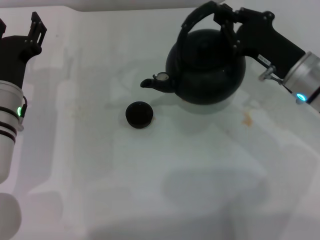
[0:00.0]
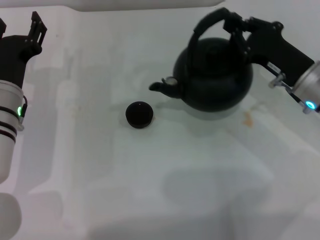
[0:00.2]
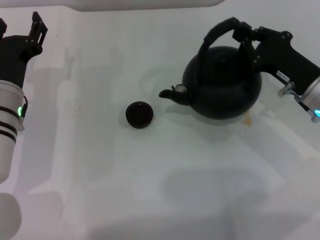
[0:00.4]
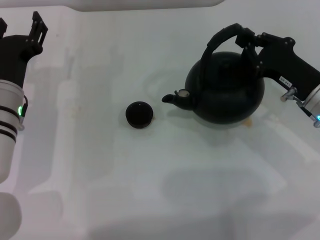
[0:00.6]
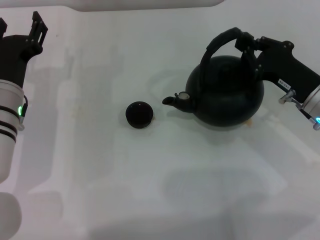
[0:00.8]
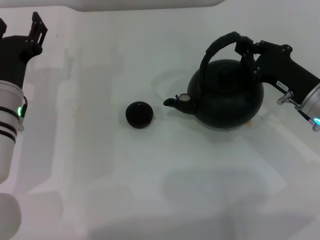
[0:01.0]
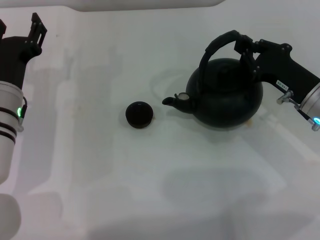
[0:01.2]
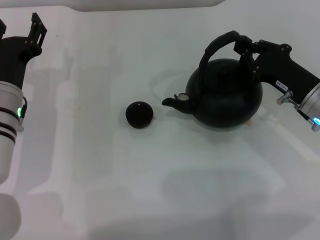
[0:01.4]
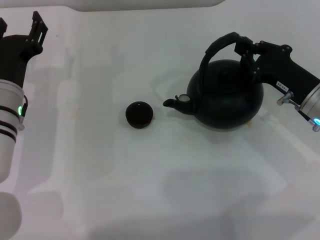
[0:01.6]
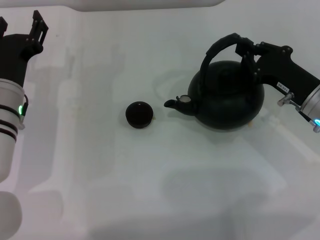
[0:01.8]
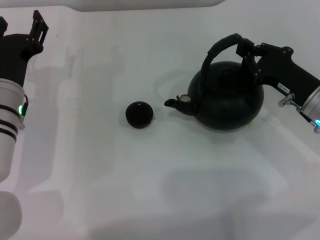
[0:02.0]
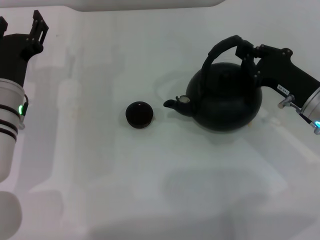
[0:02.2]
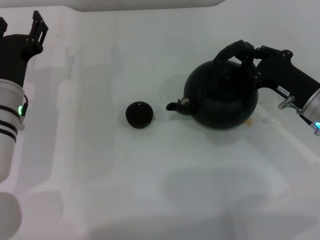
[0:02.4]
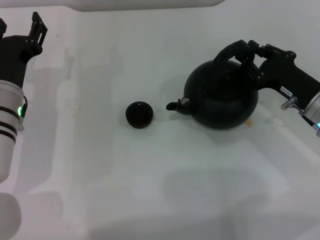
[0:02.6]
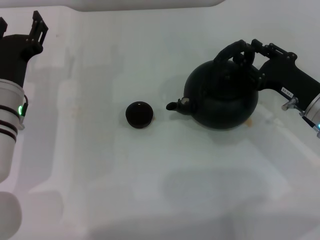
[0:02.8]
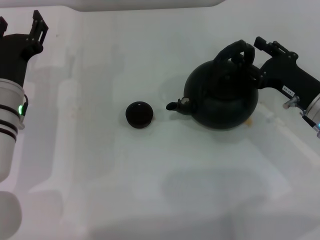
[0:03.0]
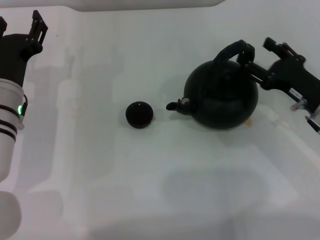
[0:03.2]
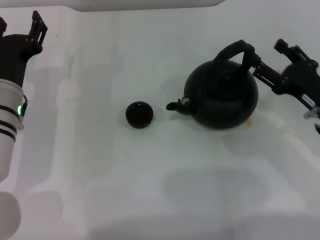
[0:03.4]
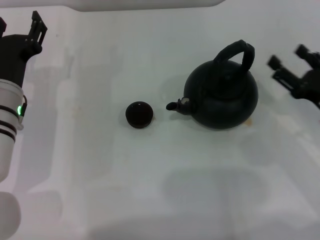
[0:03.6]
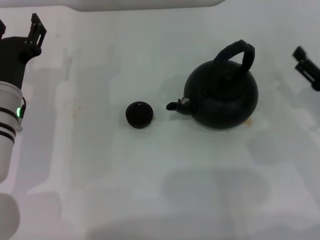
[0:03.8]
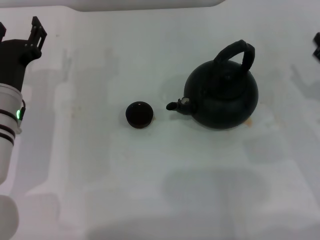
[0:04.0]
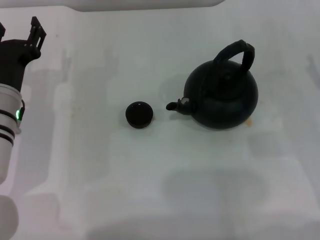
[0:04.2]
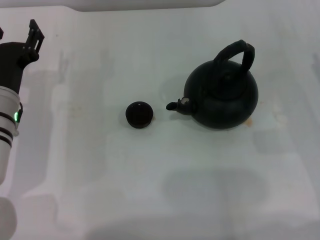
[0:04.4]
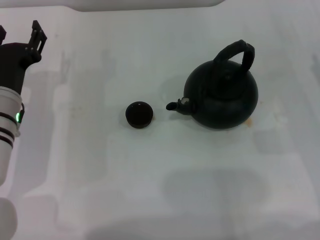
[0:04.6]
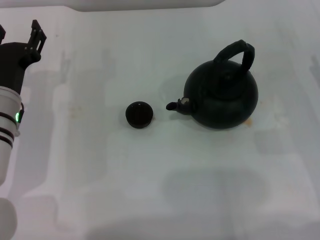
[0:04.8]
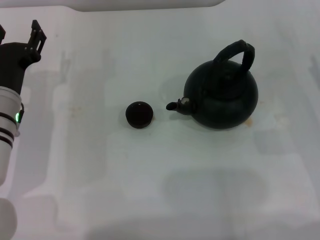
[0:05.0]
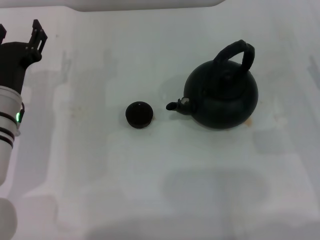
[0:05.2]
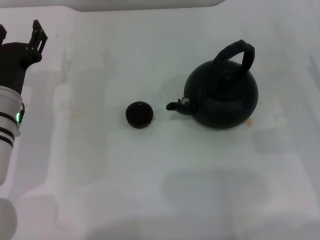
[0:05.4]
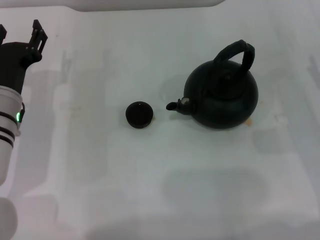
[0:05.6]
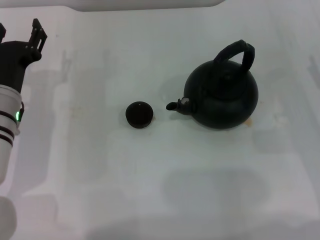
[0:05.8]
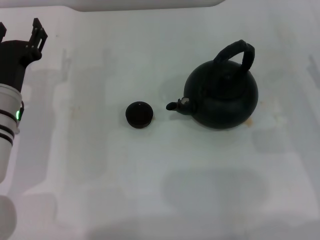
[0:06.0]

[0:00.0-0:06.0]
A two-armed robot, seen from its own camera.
Task of the whole recording: Grasp the handle of the teapot with one hand and pour tea into the teacup.
Step, 0:00.2 to 0:03.4: Put down the teapot with the right gripper.
0:00.0 to 0:01.6: The right gripper changes place by about 5 cm.
0:01.6 to 0:03.0: The right gripper opens up.
0:03.0 to 0:04.4: The right gripper shifts approximately 10 cm to the right, and opens up.
0:04.4 to 0:06.0: The two grippers keep their place.

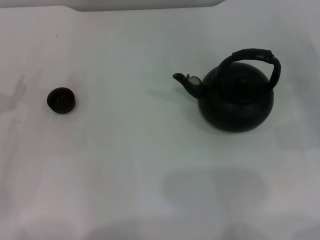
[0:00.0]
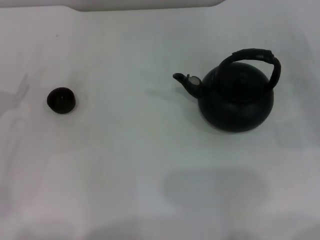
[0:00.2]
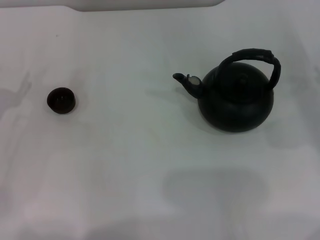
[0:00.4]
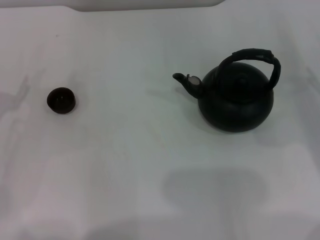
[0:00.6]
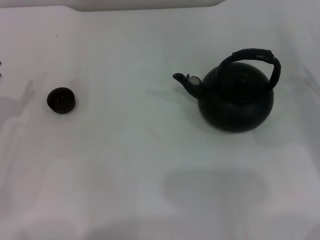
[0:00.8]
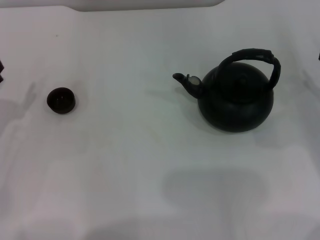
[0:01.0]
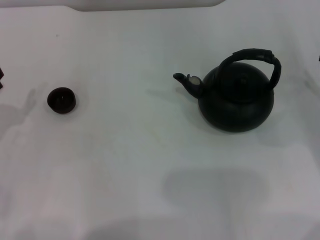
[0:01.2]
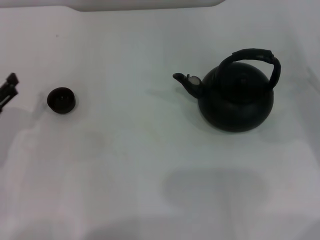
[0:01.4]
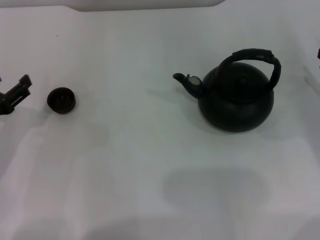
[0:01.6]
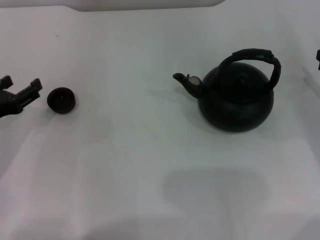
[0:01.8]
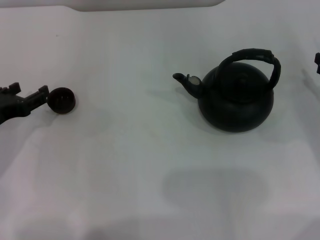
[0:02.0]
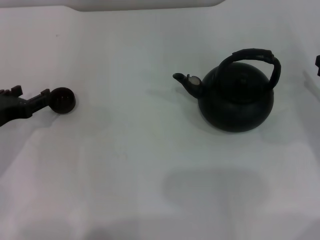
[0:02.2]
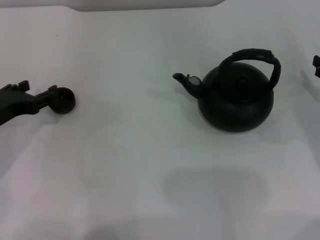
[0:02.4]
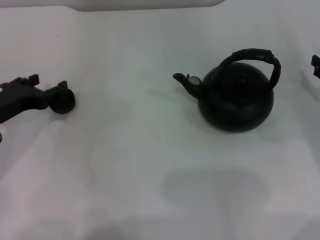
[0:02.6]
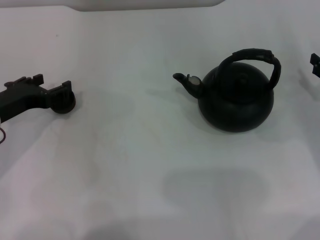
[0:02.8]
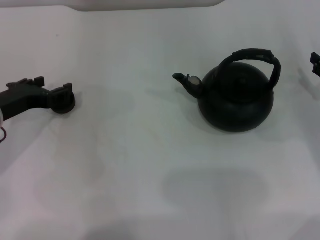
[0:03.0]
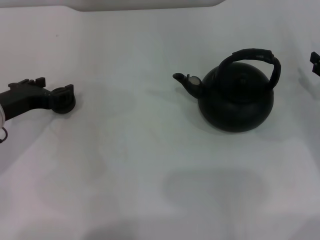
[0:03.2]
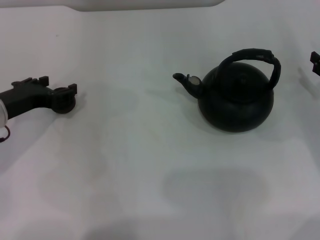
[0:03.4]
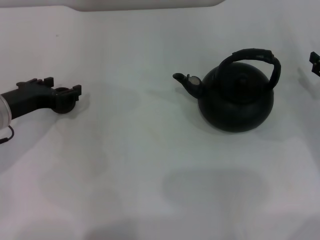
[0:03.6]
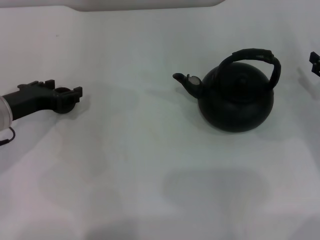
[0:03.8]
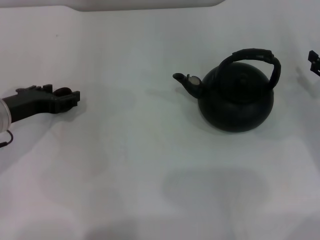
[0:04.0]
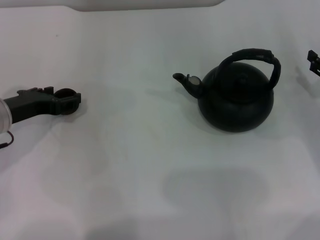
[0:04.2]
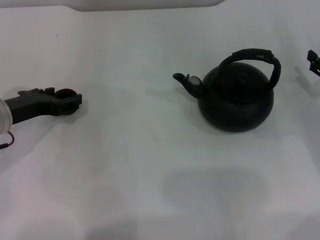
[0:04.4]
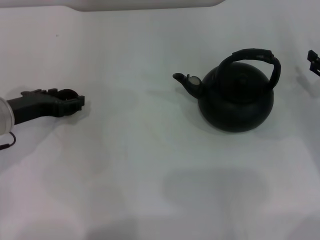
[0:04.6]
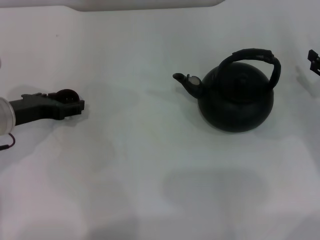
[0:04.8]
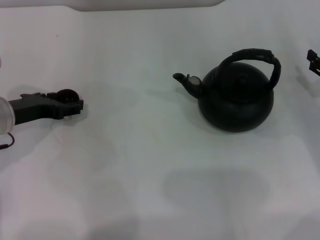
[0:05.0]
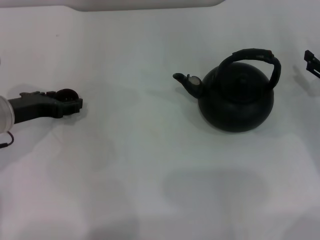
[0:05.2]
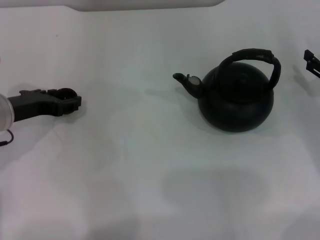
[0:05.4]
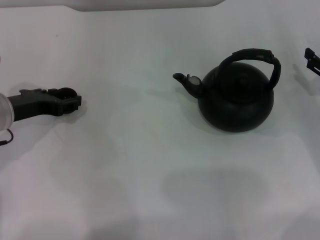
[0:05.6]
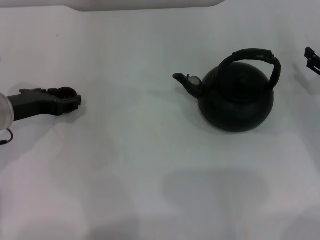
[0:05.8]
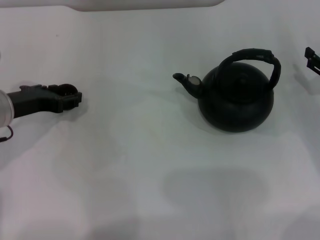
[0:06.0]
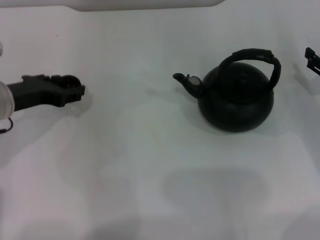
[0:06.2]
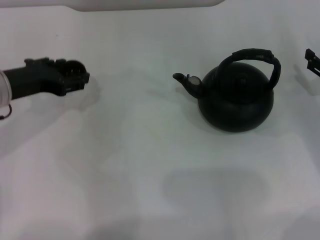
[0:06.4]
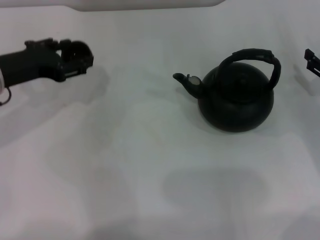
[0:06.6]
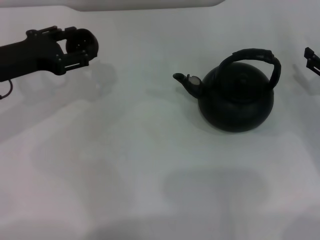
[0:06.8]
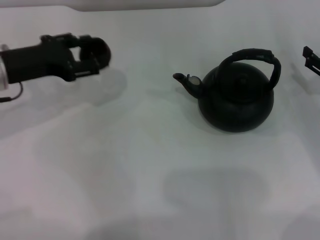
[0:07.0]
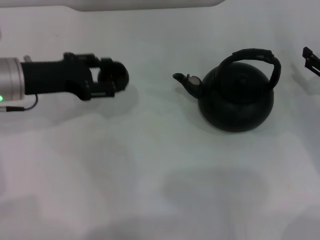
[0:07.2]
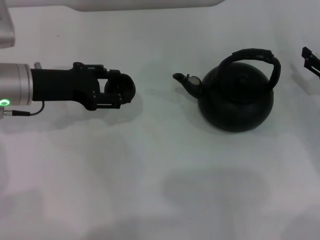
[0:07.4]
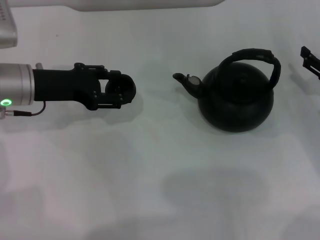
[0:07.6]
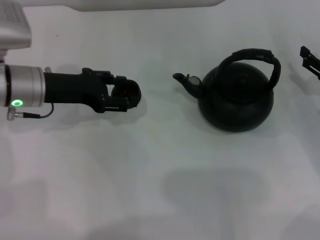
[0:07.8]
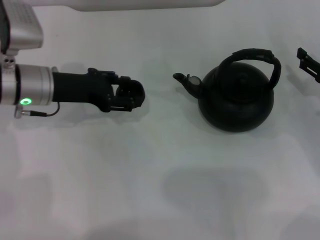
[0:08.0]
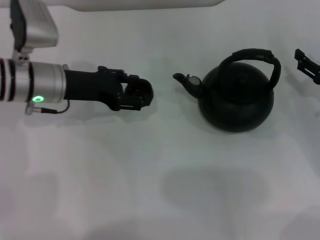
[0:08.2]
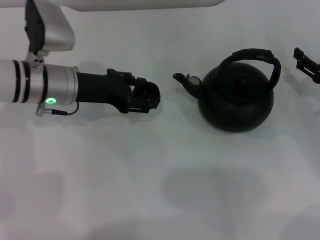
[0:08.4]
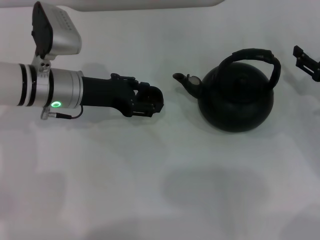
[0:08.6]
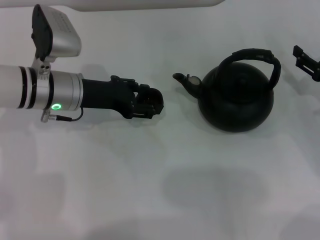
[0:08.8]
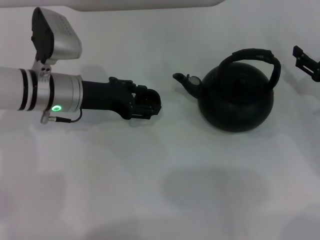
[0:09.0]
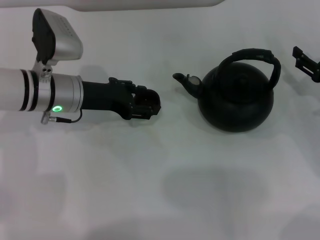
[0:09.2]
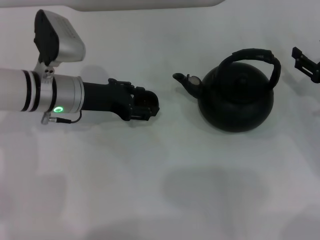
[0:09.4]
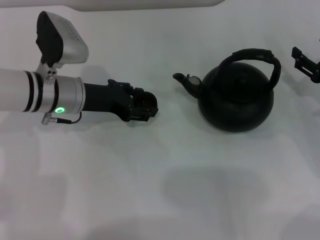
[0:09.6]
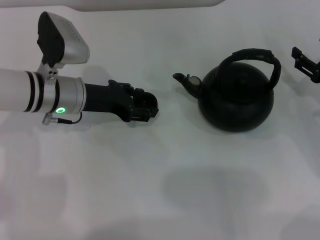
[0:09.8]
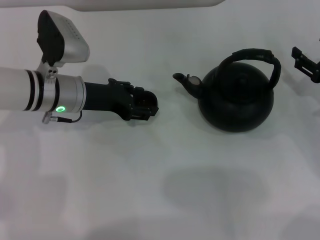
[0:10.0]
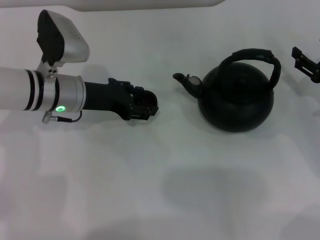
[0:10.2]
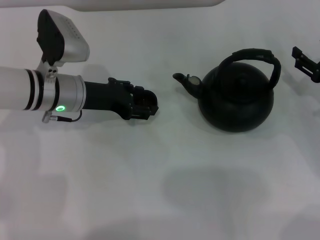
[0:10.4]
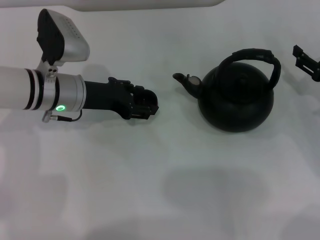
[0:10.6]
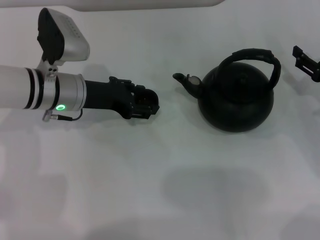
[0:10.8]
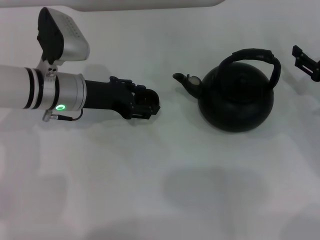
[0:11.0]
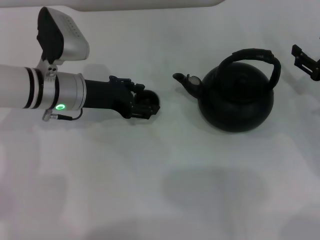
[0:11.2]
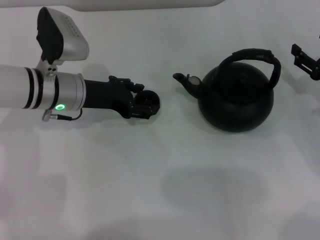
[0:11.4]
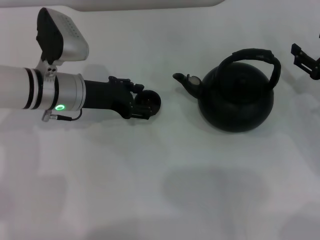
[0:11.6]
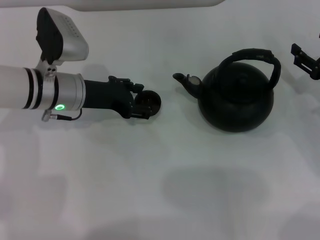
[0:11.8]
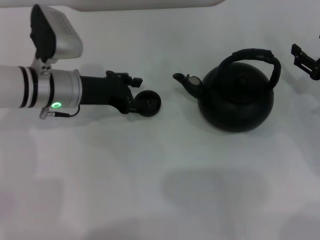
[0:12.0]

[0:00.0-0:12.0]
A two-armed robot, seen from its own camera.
Task of the whole recording: Grasp the handle of the teapot with one hand and pour tea into the teacup.
Step, 0:00.0 to 0:06.4: Pick up the teacup with the left gripper.
0:00.0 to 0:01.6: The grippers move only a little.
0:01.6 to 0:03.0: The left gripper heads forward, covering approximately 5 cm.
0:03.0 to 0:04.4: The grippers make only small movements.
0:04.4 to 0:06.0: The left gripper closes.
0:07.6 to 0:09.0: The left gripper shifts some 5 cm to the right.
0:09.0 to 0:10.4: The two grippers keep their place.
0:10.4 to 0:12.0: The left gripper opens up.

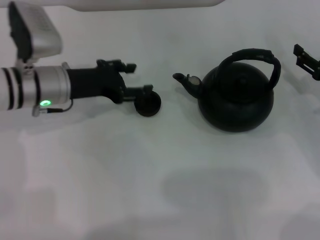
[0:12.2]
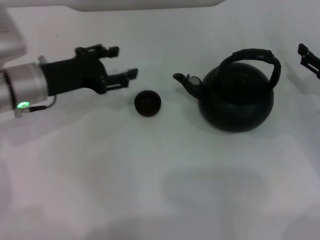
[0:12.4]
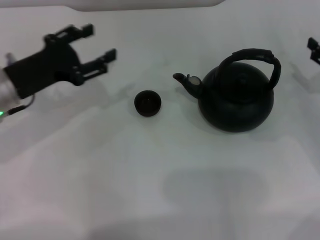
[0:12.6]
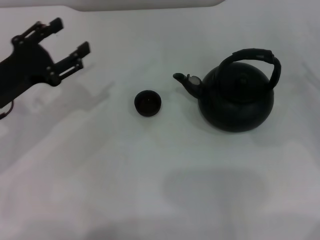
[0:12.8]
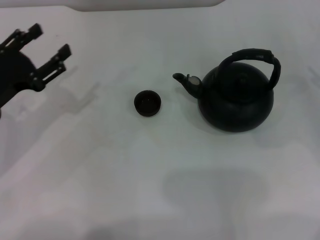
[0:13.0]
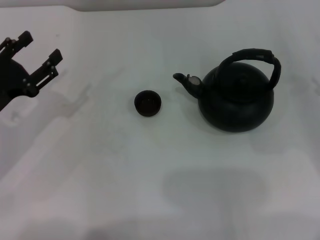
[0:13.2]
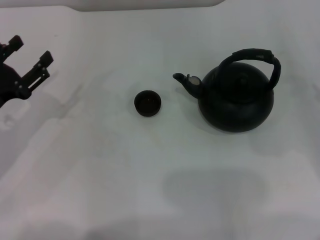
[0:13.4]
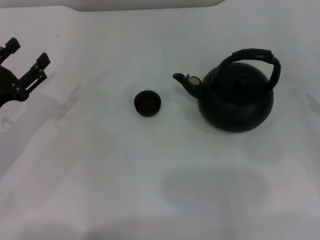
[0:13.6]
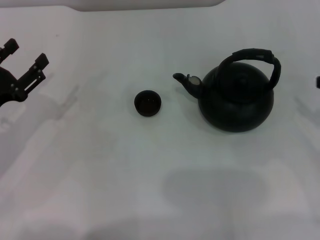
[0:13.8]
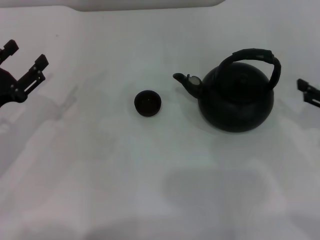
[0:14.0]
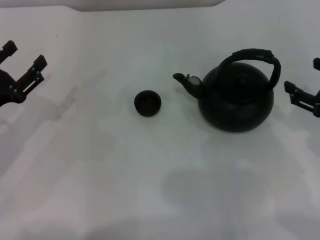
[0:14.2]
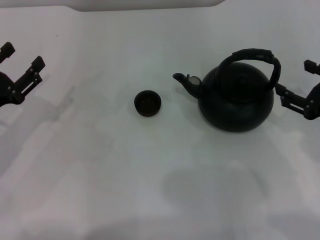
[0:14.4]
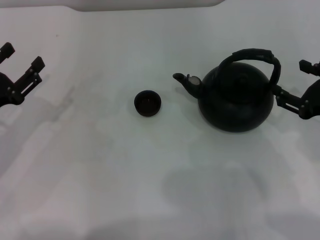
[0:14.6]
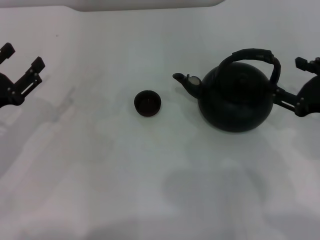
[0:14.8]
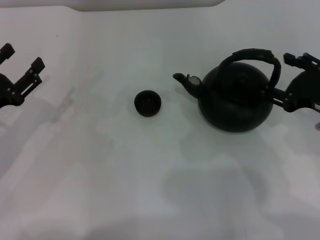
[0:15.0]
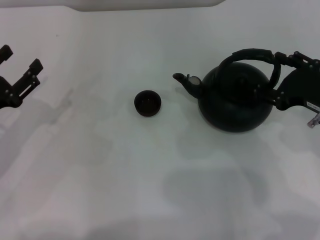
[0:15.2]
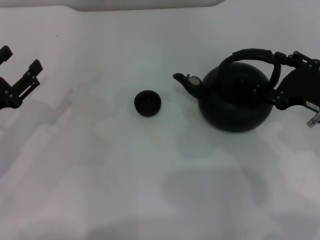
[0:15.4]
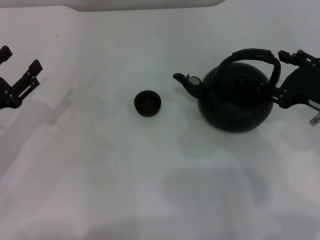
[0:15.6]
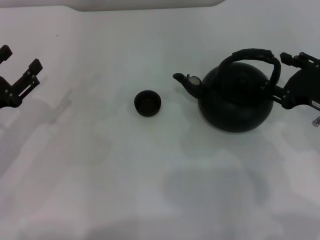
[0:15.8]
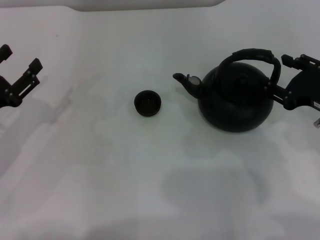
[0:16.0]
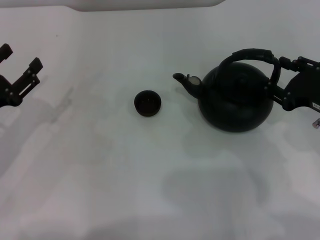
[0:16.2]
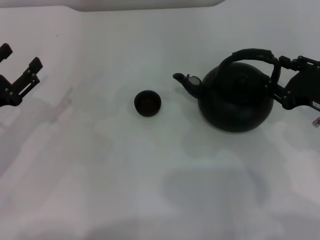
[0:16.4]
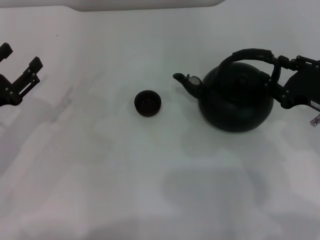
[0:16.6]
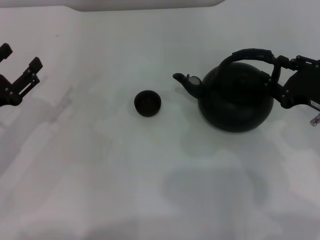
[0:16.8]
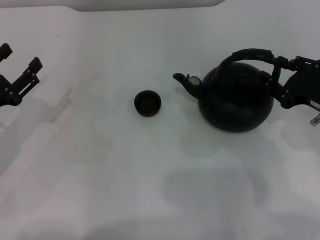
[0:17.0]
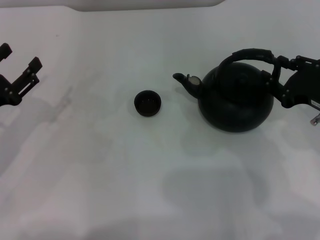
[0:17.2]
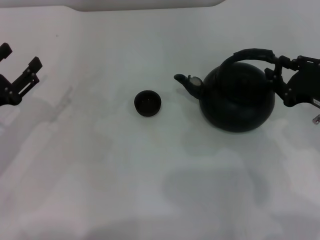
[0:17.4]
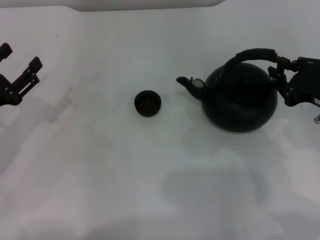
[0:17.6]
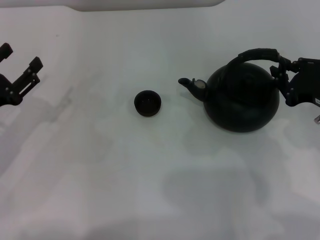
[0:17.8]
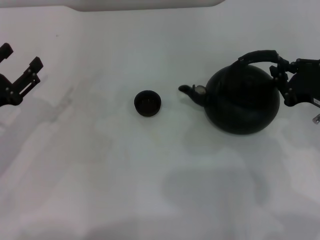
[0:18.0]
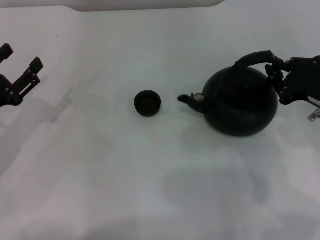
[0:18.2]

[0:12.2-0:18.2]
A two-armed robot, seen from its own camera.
Task of the whole recording: Grasp the handle of the teapot with one hand and pour tea into the teacup.
0:12.2 to 0:13.8: The left gripper goes approximately 15 cm to the left and backward, while the right gripper shifts about 10 cm backward and upward.
0:13.8 to 0:15.2: The right gripper goes roughly 10 cm to the left.
0:15.2 to 0:16.6: The right gripper closes.
0:16.6 to 0:18.2: The right gripper closes.
